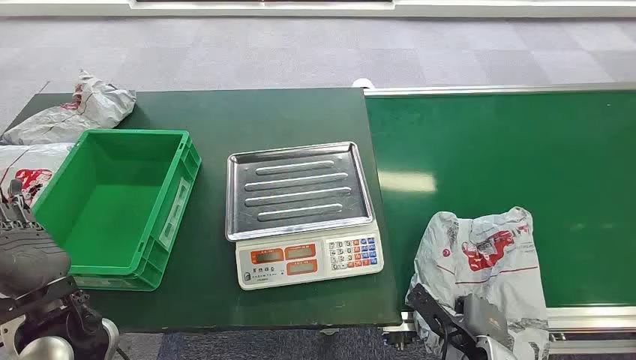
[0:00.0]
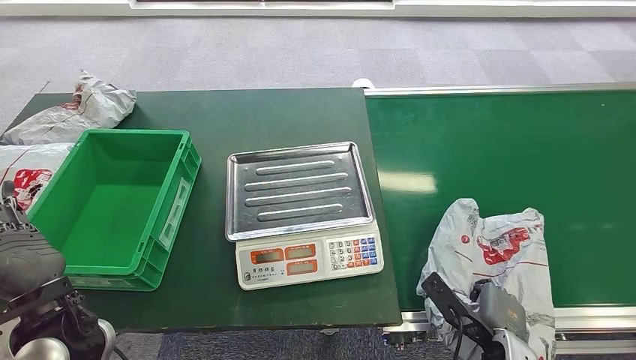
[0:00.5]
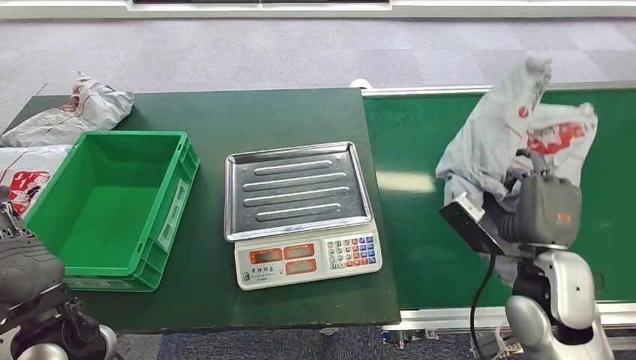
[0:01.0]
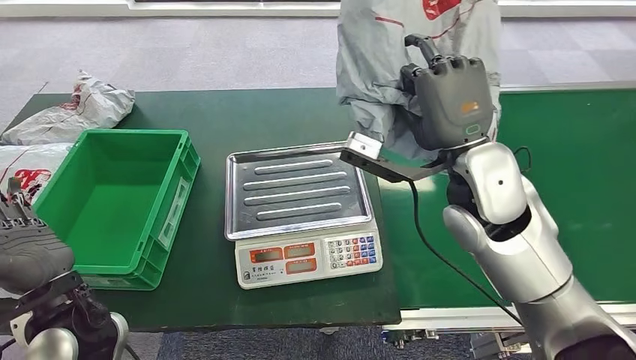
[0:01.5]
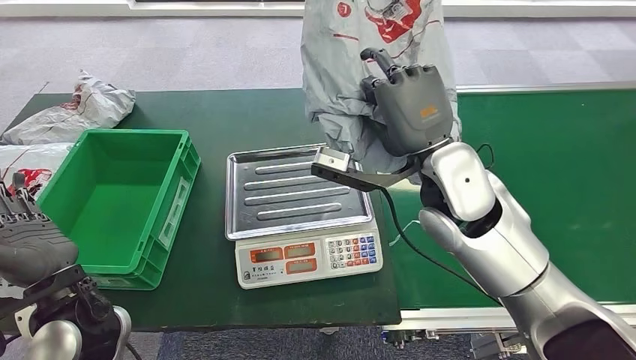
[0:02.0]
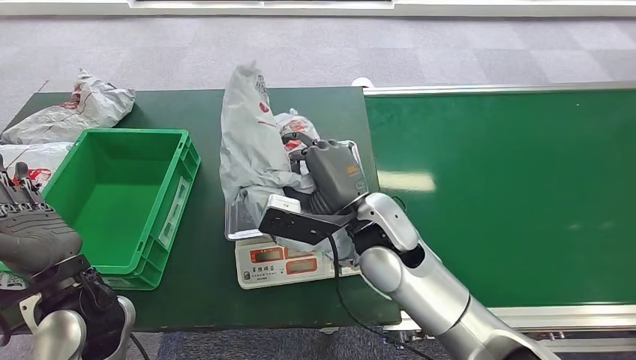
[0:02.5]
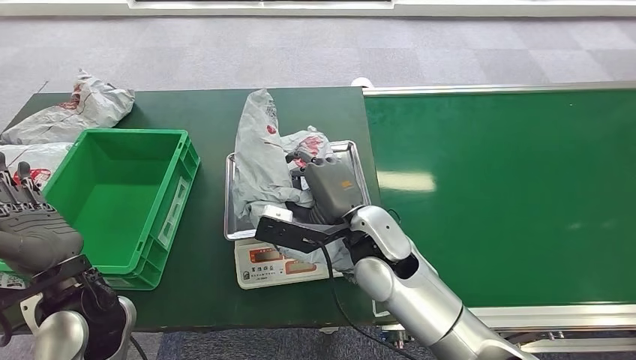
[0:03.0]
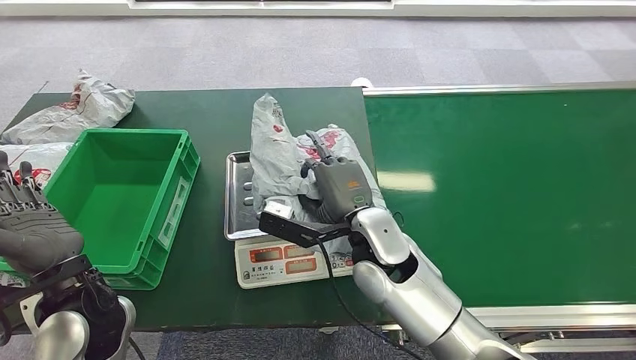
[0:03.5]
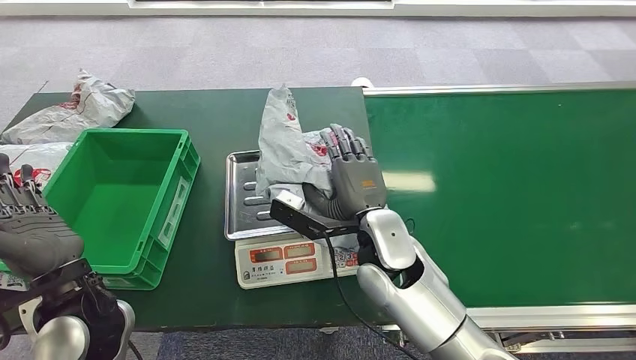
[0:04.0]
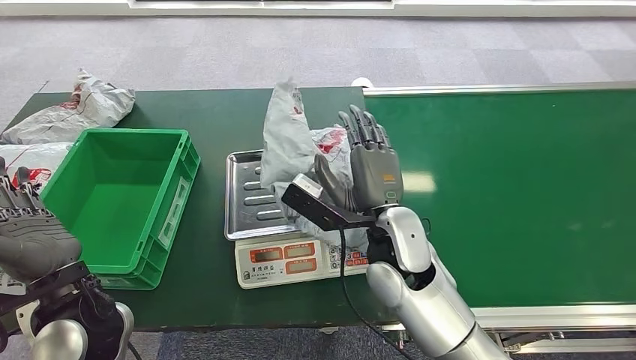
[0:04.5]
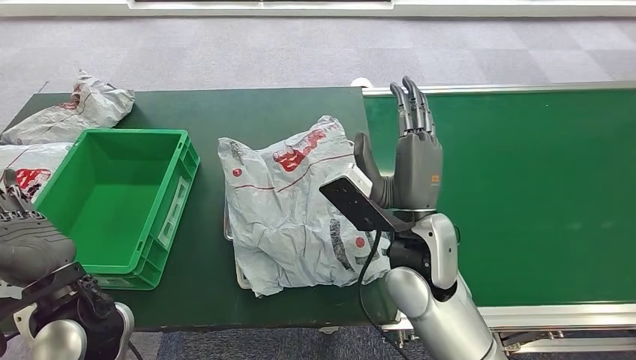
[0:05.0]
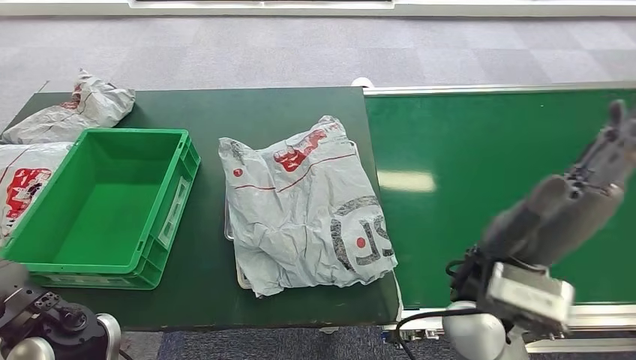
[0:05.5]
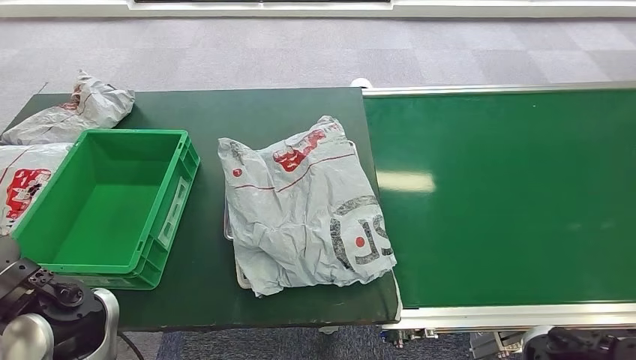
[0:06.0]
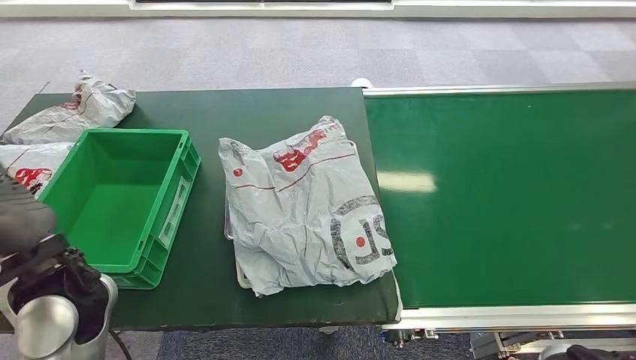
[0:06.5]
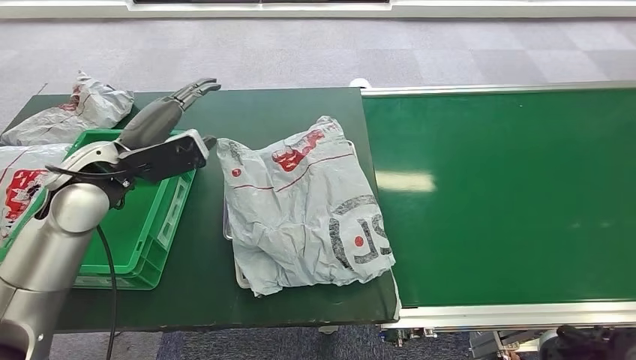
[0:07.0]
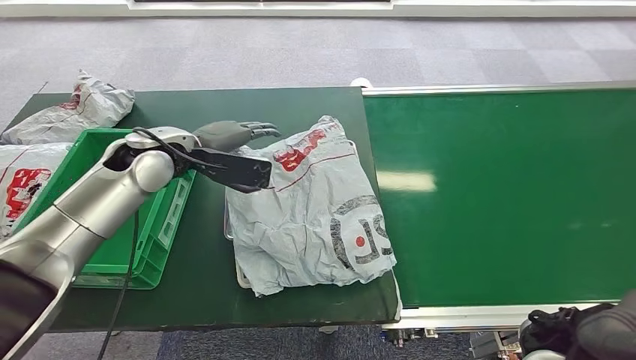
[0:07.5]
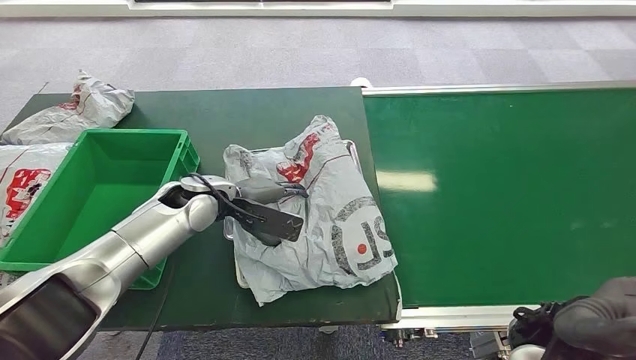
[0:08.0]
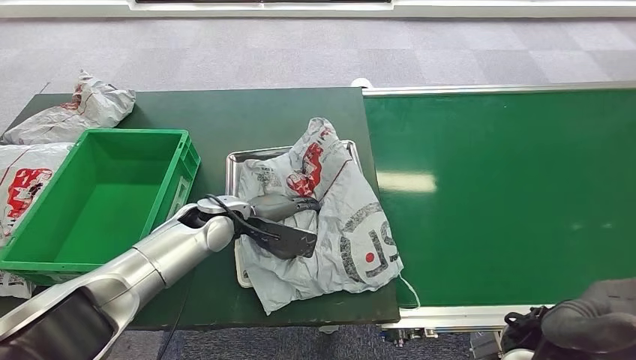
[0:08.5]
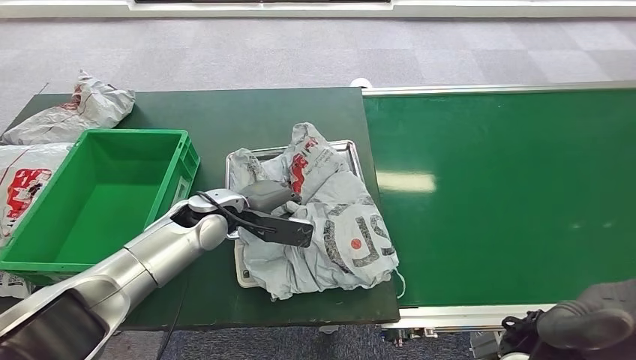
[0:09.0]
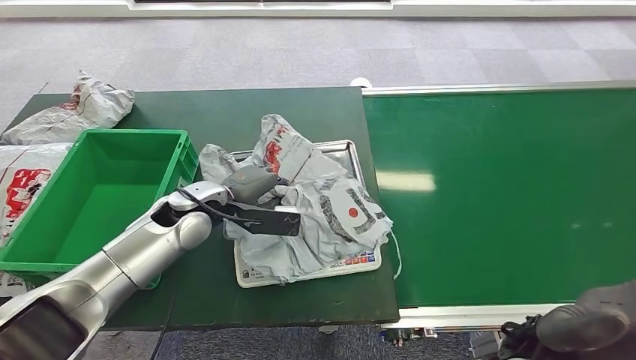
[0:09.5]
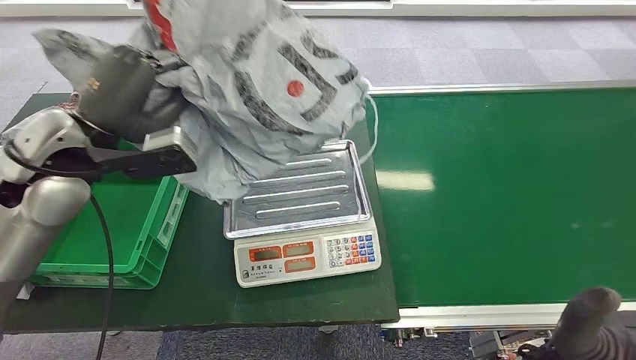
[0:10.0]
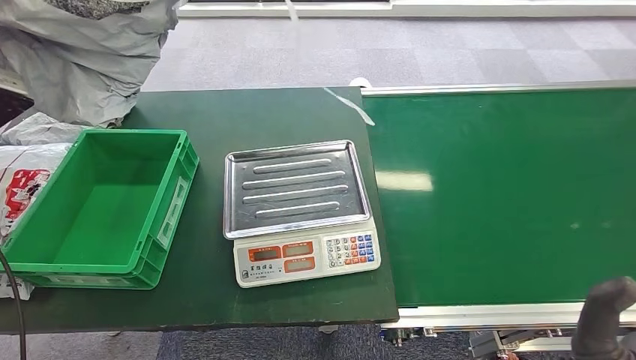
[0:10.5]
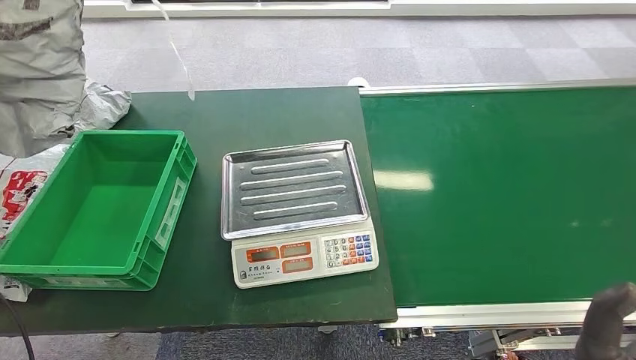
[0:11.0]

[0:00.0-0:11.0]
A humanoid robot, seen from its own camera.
Task of the whole recording: Weigh the package on the weighing device and place it in the left basket.
Step, 0:00.0 to 0:01.5: Pick up the package from the conveyor belt.
Step, 0:02.0 to 0:04.0: Place the package onto the inbound machine.
Step, 0:05.0 to 0:09.5: Pick up the package from the inbound machine.
Step, 0:10.0 to 0:11.0: Place the package into the parcel locker.
0:05.5 to 0:07.5: The left hand is displaced forward by about 25 cm; the right hand heads to the right and backward, covering some 10 cm.
